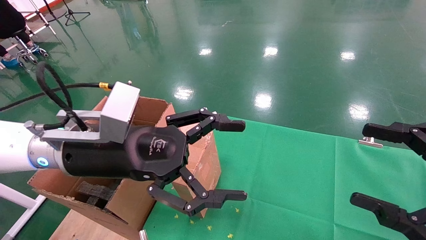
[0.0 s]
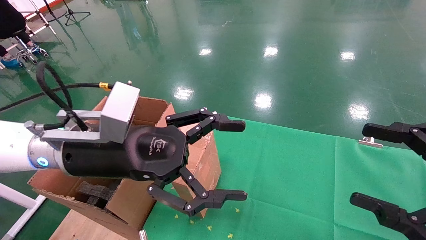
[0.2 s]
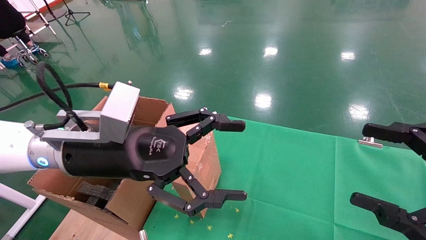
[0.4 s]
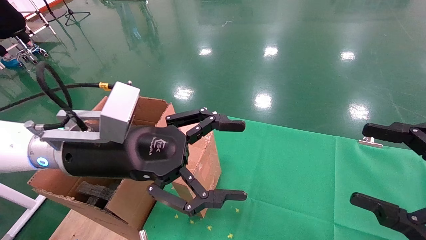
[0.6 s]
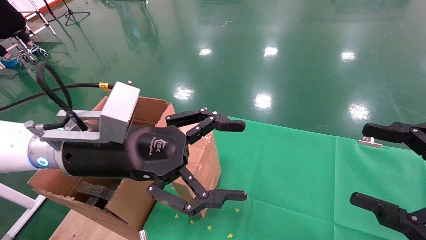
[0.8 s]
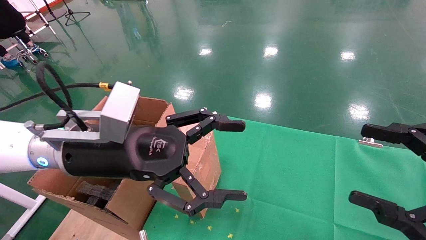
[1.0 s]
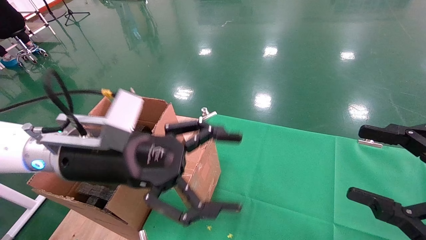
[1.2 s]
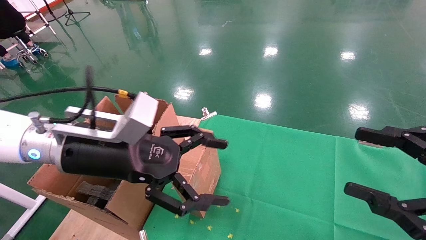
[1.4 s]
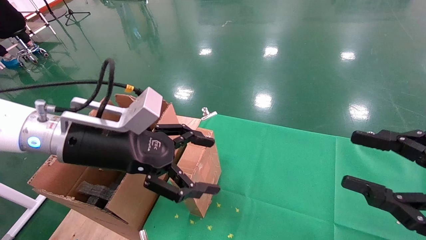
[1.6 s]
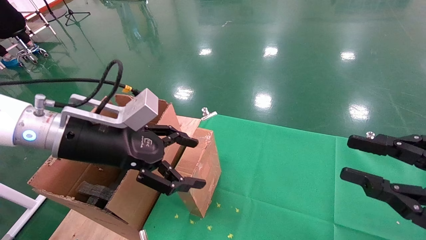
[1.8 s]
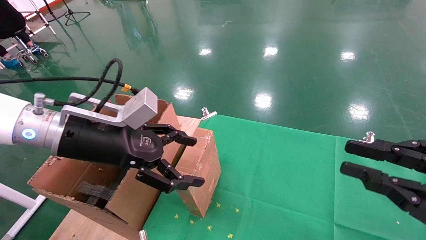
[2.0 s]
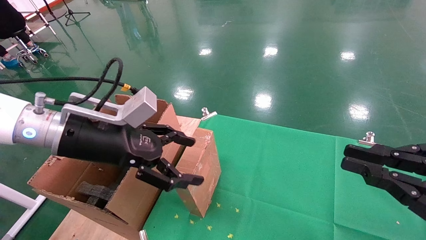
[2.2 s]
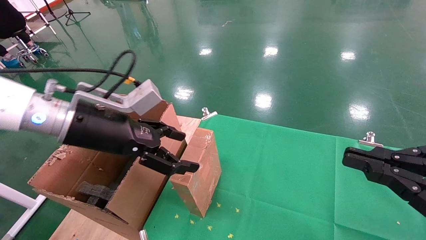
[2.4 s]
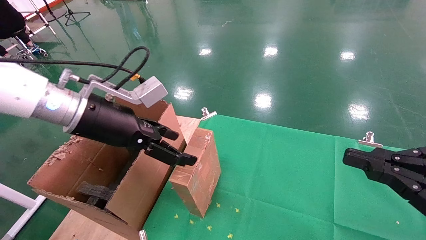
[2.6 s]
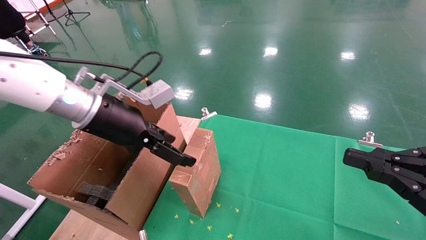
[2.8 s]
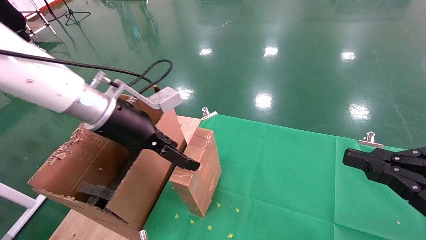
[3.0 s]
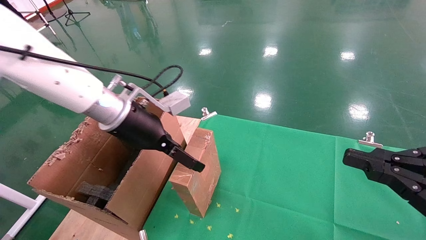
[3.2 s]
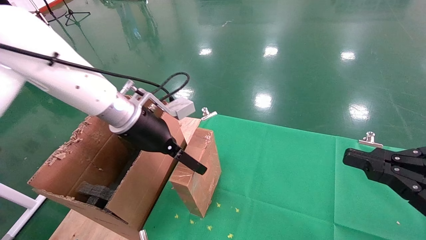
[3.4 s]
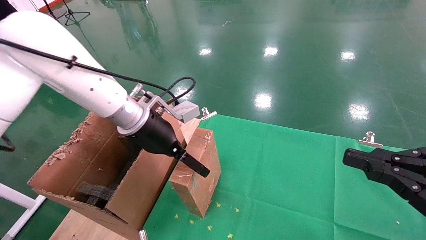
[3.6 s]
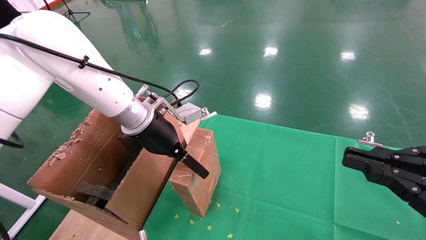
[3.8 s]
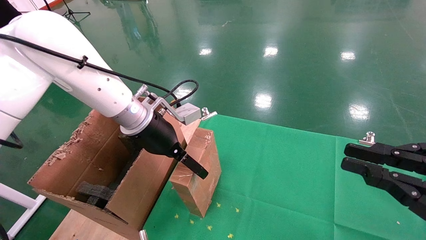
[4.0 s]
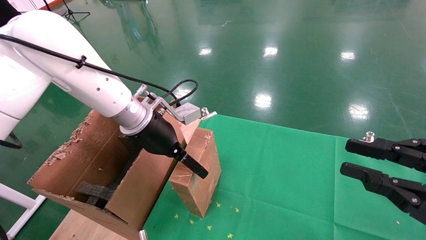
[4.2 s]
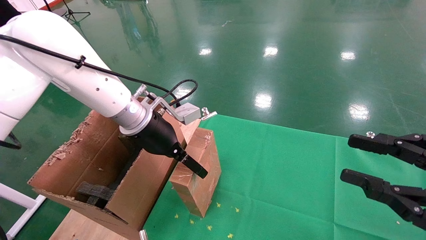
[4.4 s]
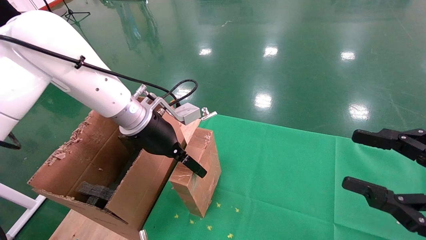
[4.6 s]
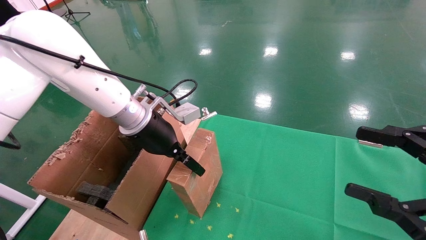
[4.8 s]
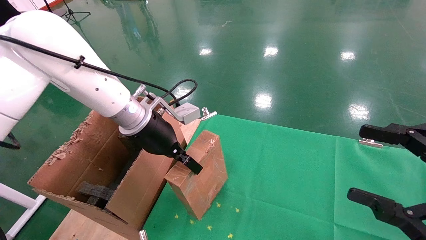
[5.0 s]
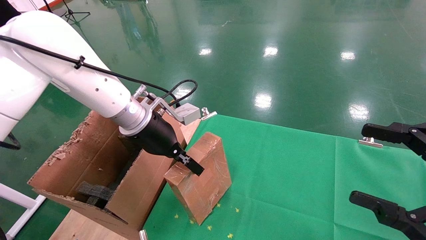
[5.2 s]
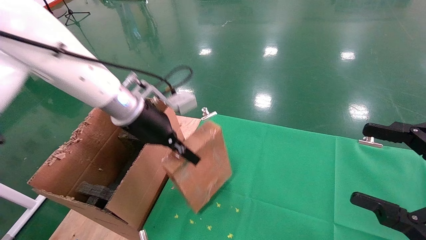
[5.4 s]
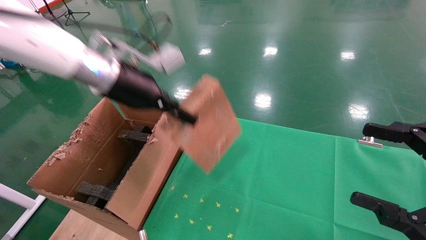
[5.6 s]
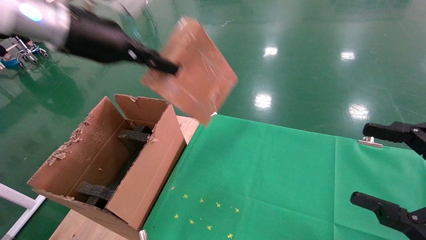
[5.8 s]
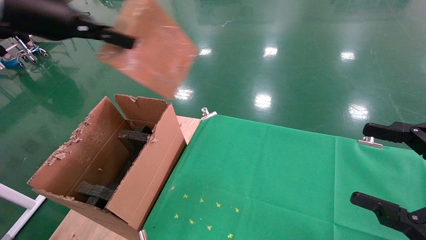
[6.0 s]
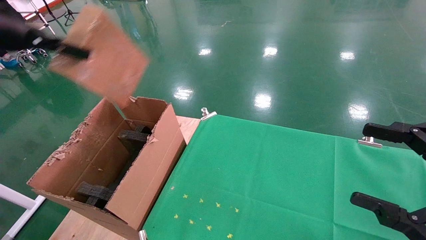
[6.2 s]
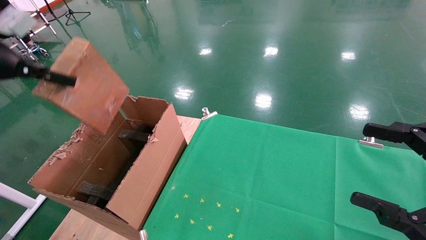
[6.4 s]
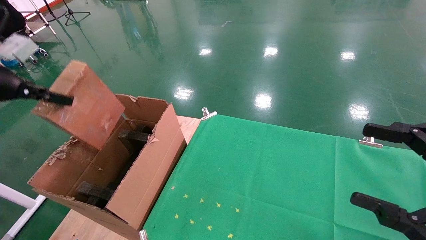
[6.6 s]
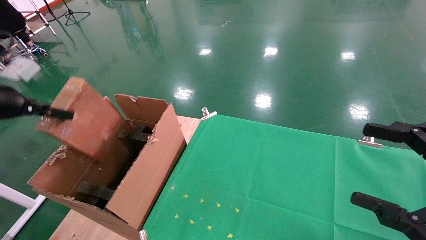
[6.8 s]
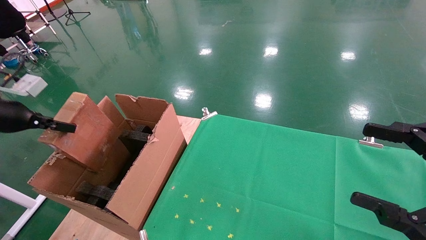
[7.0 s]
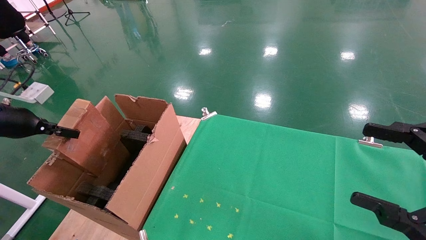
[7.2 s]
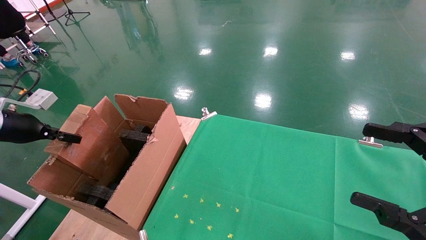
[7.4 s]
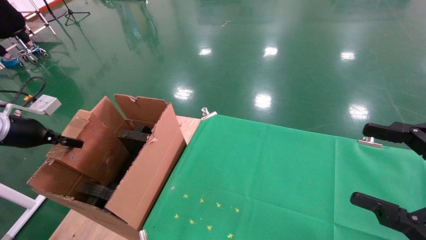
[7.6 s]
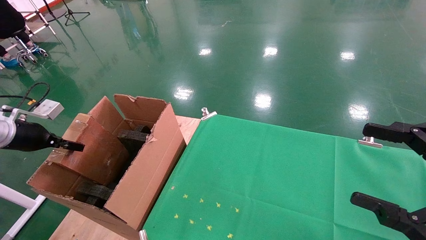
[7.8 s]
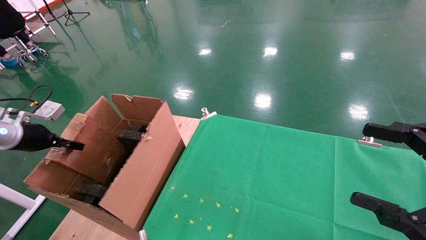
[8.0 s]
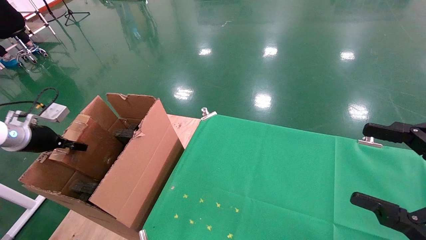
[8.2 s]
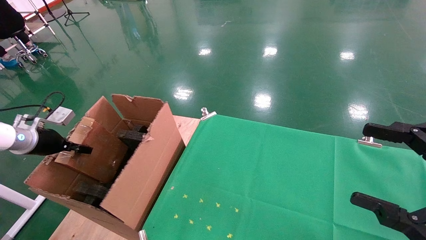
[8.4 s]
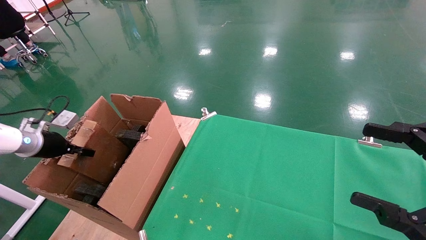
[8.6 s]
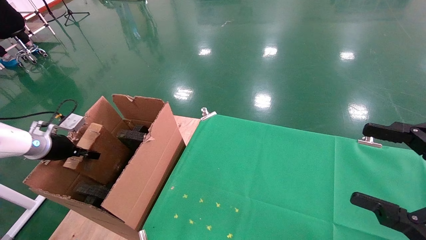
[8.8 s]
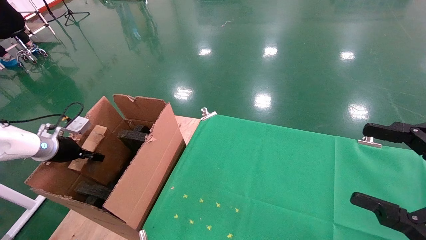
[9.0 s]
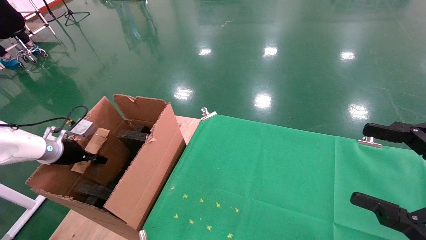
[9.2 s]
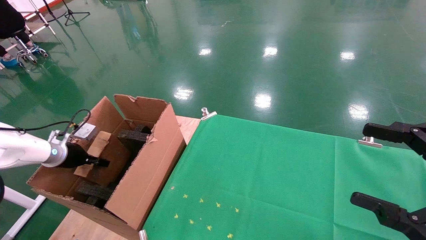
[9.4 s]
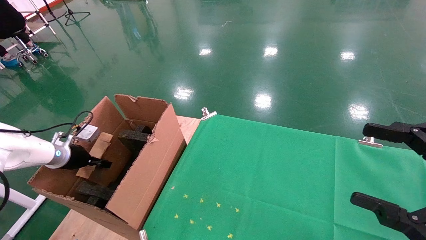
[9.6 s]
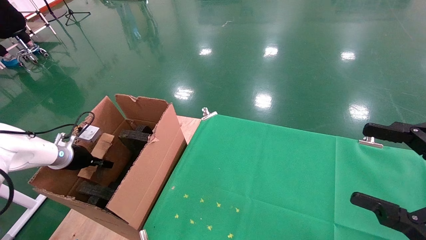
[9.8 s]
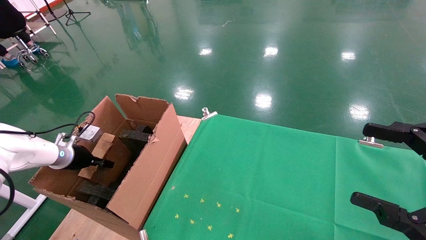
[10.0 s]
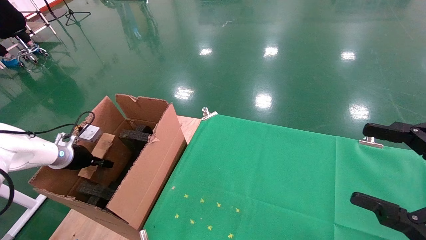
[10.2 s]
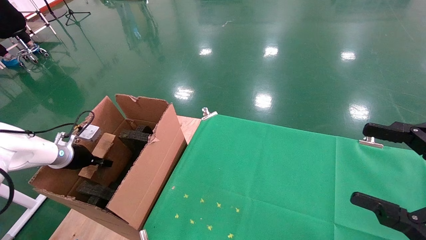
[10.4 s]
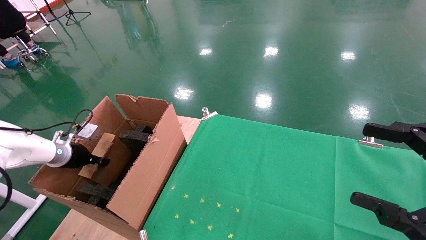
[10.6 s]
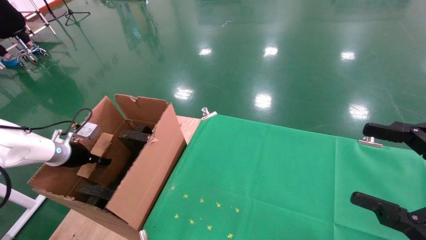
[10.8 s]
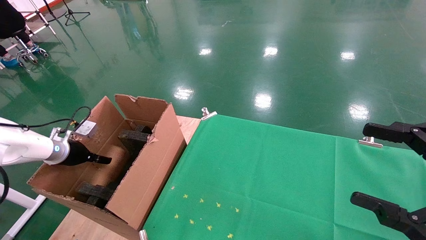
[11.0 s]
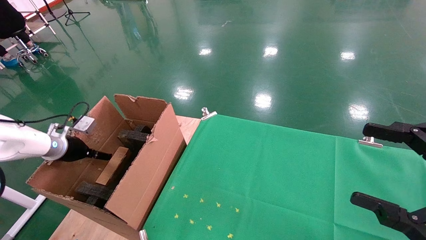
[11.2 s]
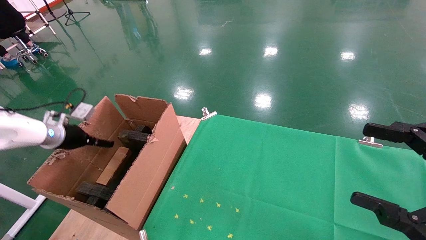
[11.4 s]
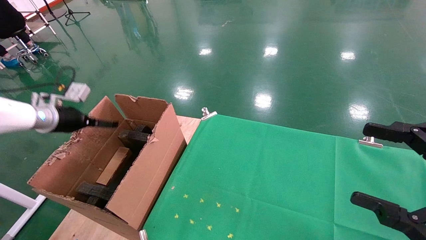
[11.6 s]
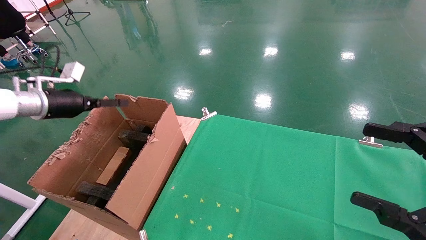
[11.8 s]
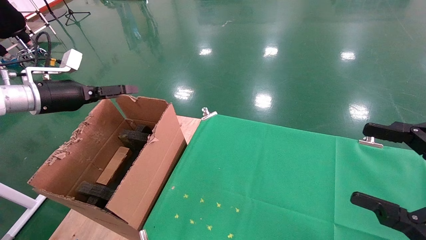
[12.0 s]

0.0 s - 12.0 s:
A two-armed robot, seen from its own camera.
Task of the whole recording: using a robotic arm to pick up a cardboard box and palace it the carton.
Step, 1.4 s - 5.0 s: Pick up the mouse and the power cord paper box.
Step, 5.2 s - 11.8 s: Place the mouse and the power cord paper box into the container.
1.6 s - 3.0 s: The right gripper closes its fingers; the left gripper shifts some 5 cm forward.
3.0 s - 4.4 s: The left gripper ends up roughly 5 cm from where it was.
4.4 s - 6.0 s: The right gripper opens its fingers; the left gripper goes roughly 25 cm upward, to the left and backward, and closes.
6.0 s - 7.6 s: The left gripper moves downward and to the left, some 30 cm.
7.6 s - 9.0 s: The left gripper heads downward and forward, covering roughly 10 cm.
9.0 s - 10.4 s: The grippers move only a little.
10.4 s - 12.0 s: The left gripper travels upward by about 15 cm, and opens.

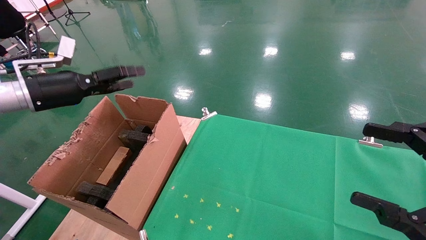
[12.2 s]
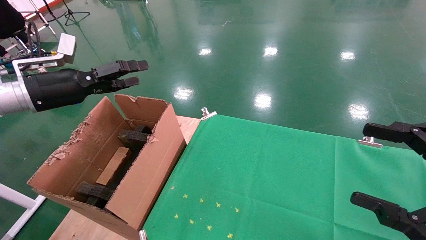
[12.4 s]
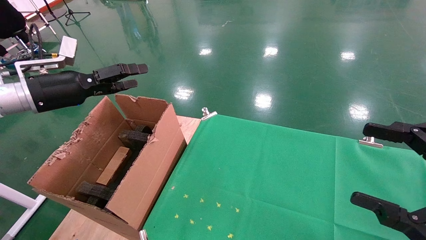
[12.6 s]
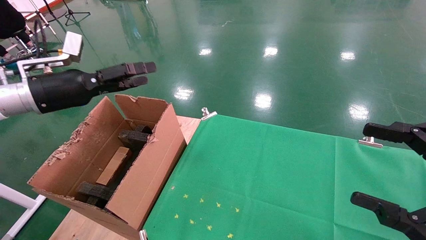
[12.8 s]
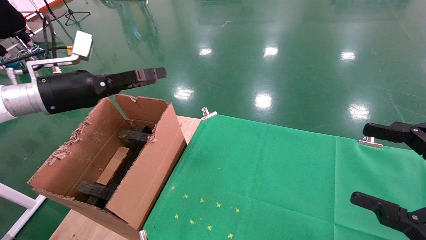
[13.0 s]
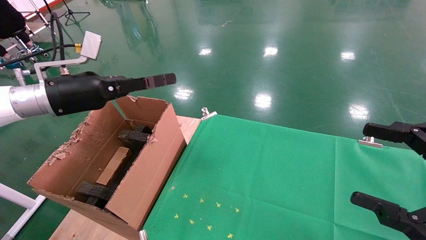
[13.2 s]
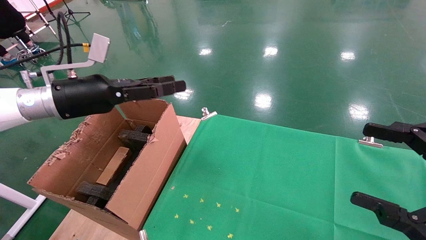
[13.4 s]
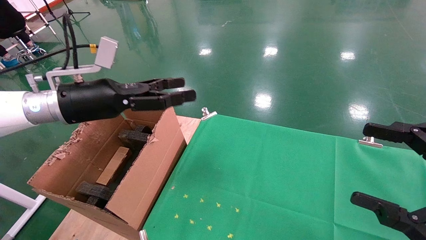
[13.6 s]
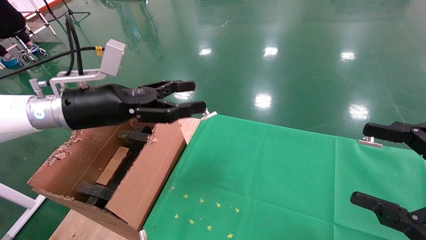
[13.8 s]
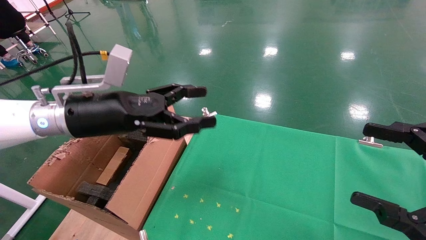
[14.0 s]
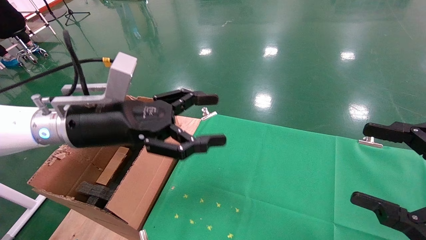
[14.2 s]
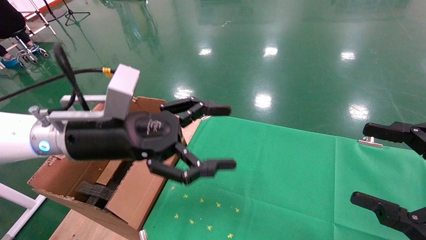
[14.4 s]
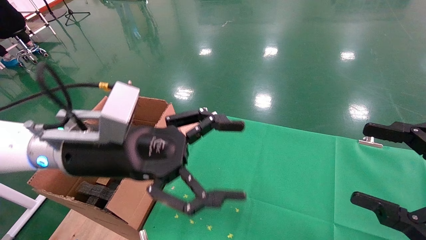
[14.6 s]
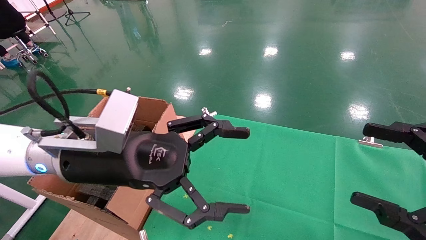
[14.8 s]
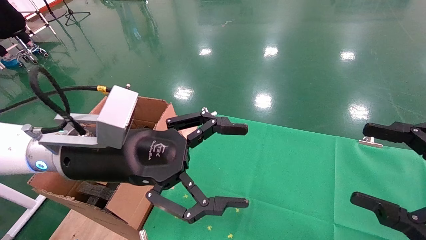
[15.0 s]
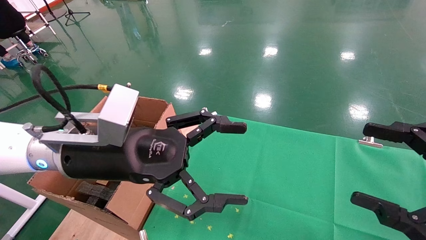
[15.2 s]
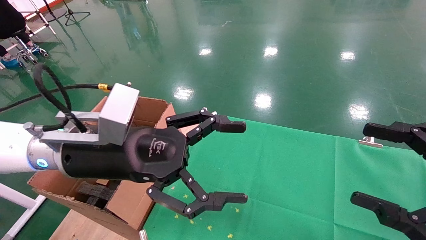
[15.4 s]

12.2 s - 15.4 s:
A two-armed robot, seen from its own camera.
Task of the whole recording: using a robotic arm to pick up a cardboard box and palace it the carton.
12.2 s - 13.8 s: The left gripper moves to the right, roughly 15 cm.
13.8 s - 15.4 s: The left gripper travels to the right and backward by approximately 10 cm.
